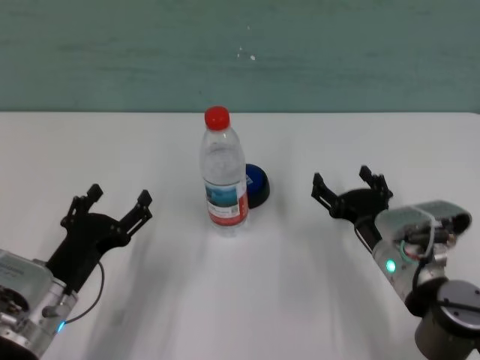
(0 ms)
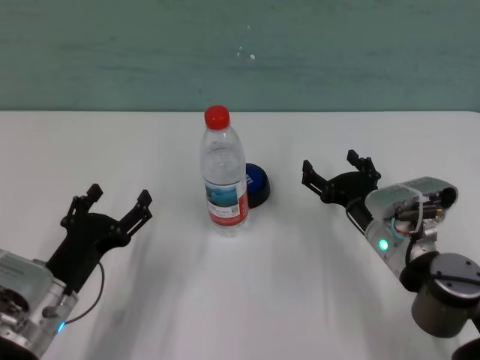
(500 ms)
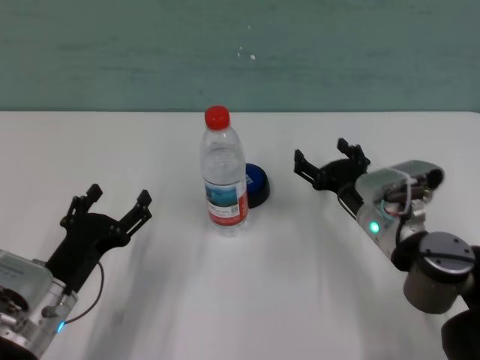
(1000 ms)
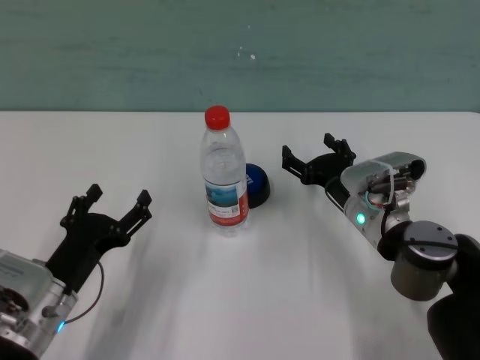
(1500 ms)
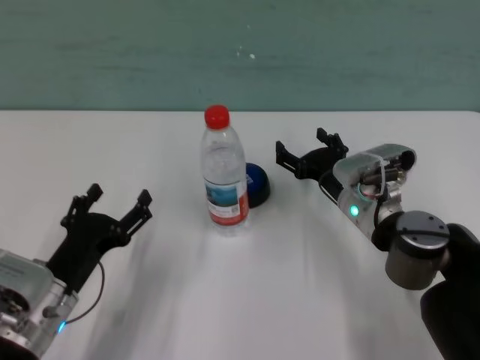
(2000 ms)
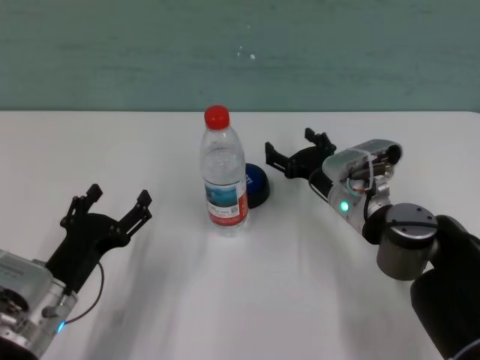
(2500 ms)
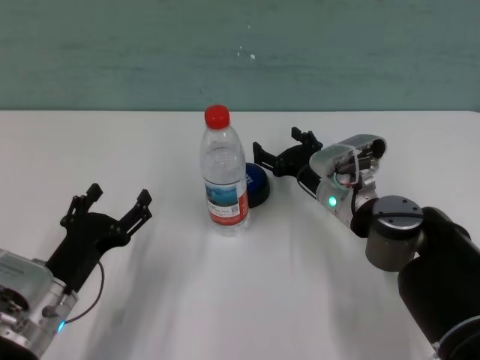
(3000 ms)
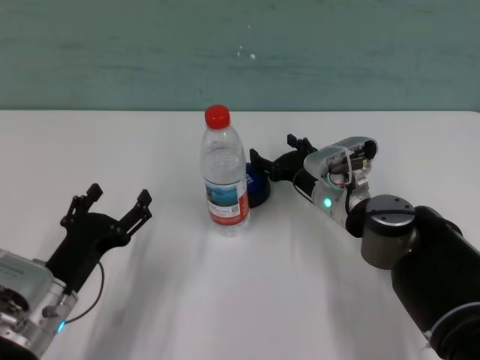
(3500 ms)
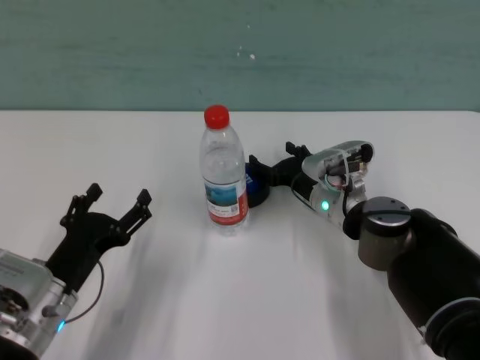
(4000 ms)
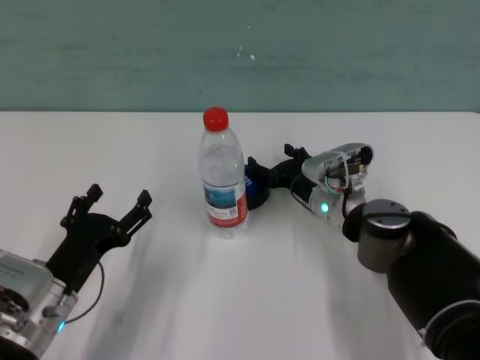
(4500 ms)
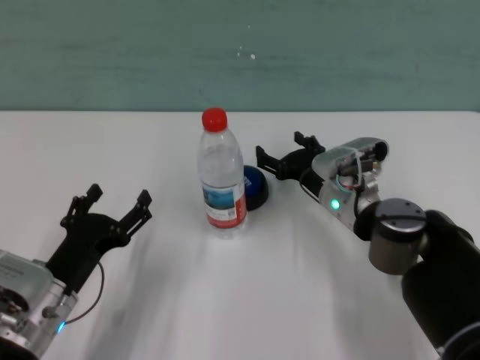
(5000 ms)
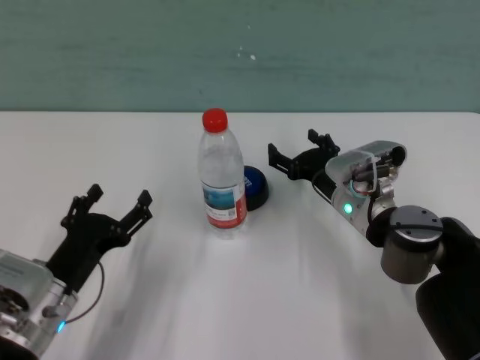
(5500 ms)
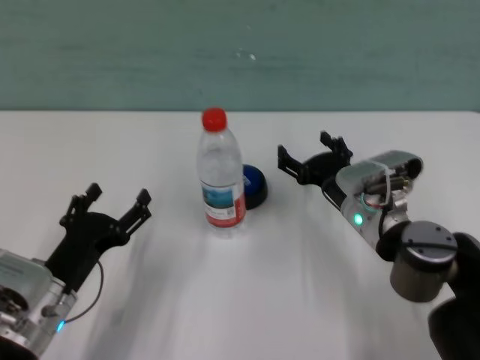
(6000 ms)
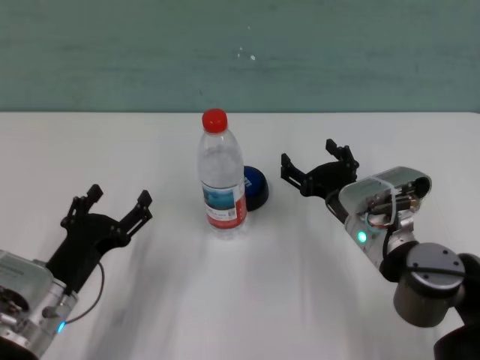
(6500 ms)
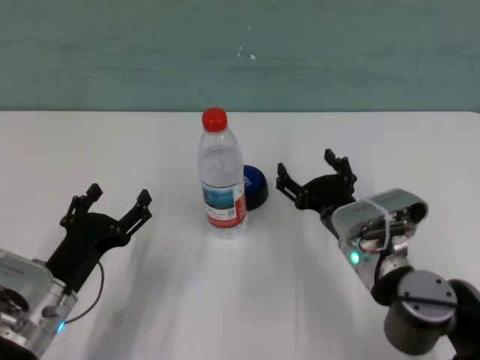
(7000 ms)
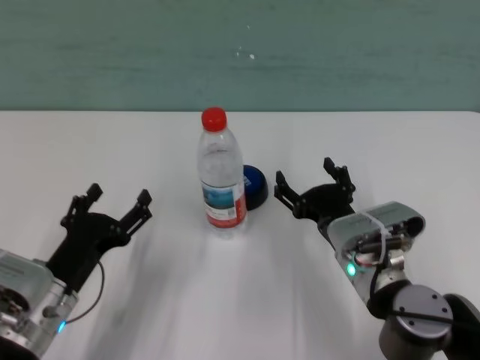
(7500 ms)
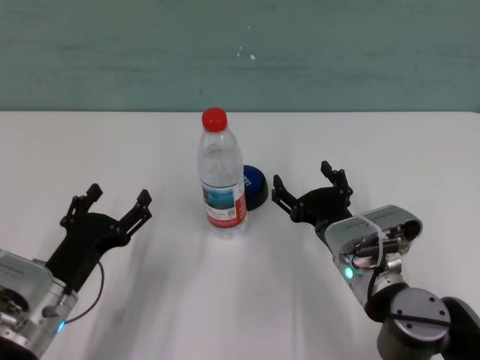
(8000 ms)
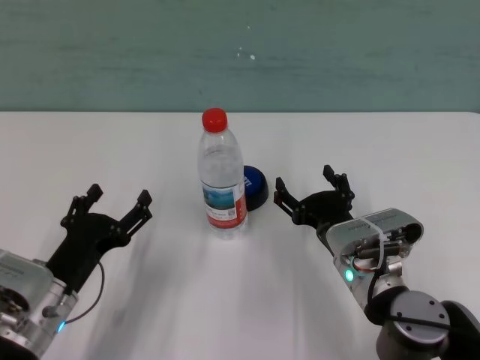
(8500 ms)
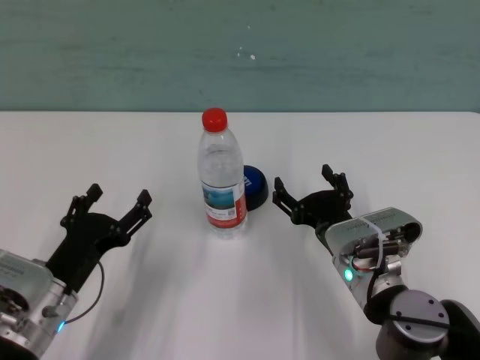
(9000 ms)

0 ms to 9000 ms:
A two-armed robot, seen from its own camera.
Task of the whole recording: after avoiding the water bottle on the table, press the button.
Step, 0 ms to 4500 ms: Press the button blocked by the bottle with right gripper.
